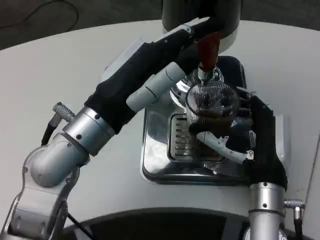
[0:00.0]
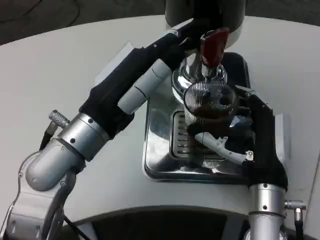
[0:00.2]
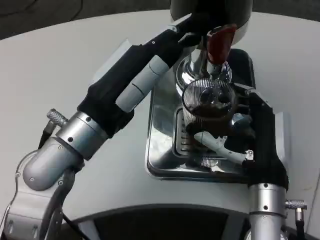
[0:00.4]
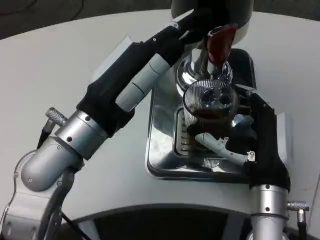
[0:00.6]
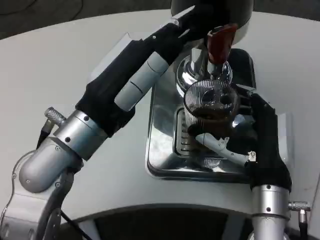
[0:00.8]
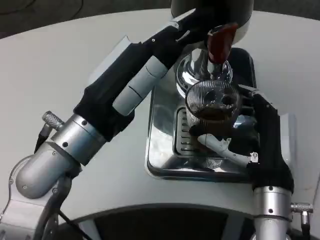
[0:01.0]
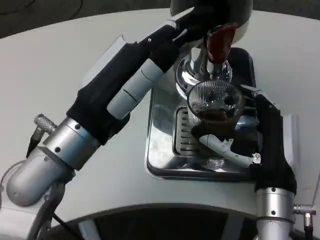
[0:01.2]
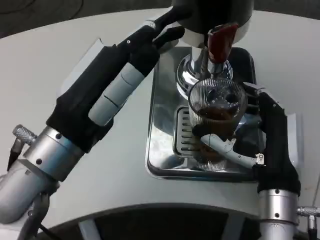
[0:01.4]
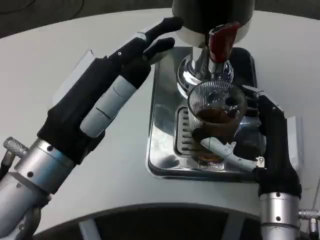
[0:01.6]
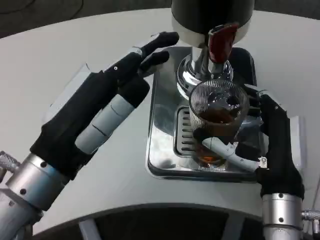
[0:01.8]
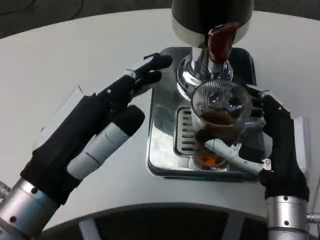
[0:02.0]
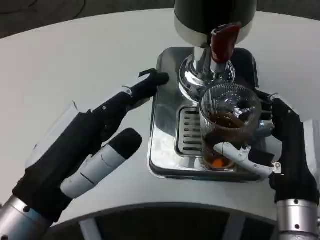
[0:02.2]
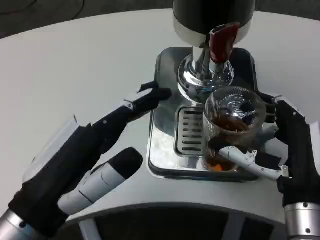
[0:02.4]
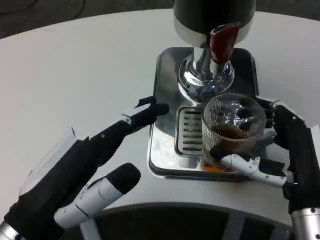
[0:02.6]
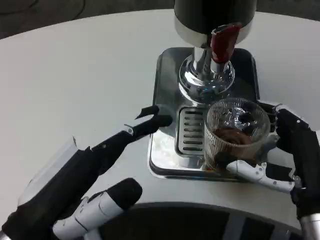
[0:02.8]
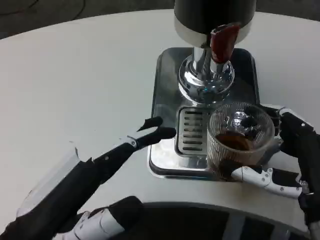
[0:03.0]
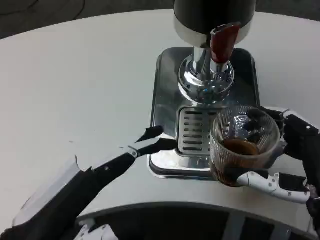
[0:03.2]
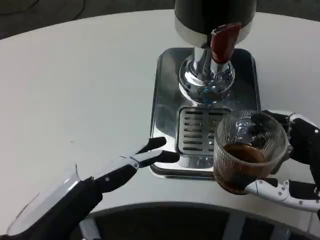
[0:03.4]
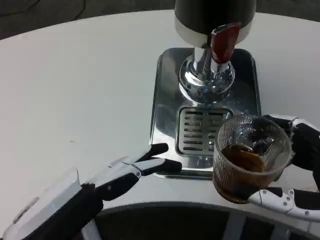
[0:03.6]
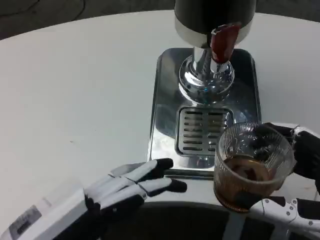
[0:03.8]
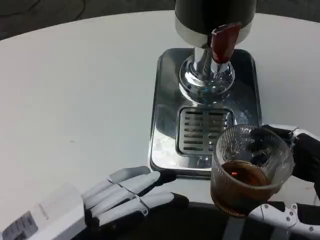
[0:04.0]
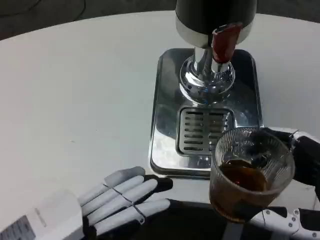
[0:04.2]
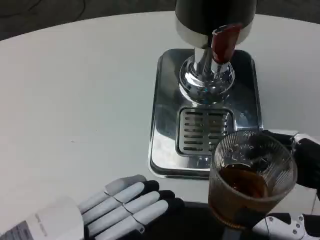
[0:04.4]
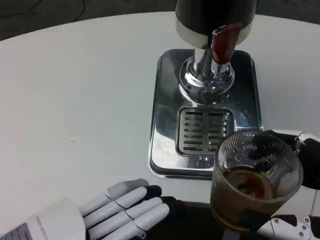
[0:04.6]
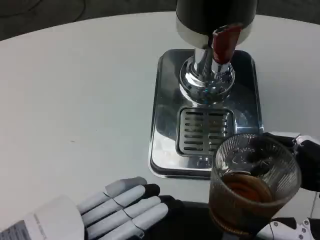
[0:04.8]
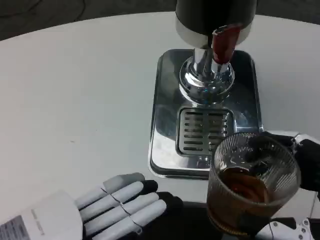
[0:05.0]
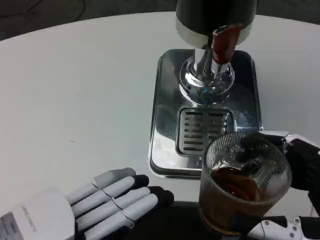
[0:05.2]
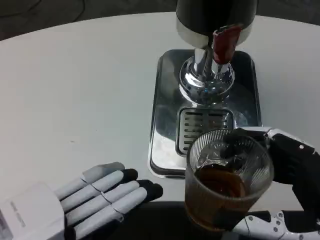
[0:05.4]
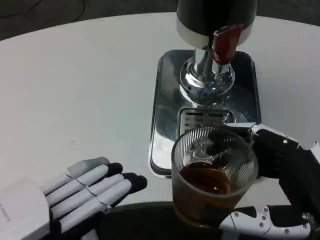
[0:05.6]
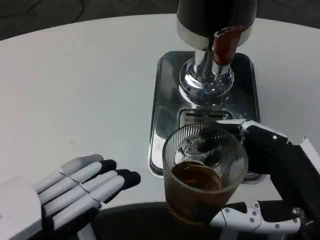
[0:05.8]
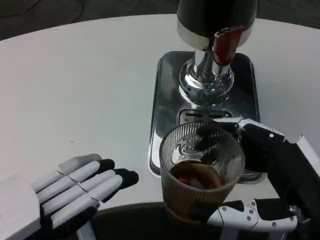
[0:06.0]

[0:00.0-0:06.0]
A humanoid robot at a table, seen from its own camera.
Task of the whole recording: Grasp the cup under the faucet to collect the drink, then remove the cup.
0:00.0 to 0:01.6: The left hand travels backward by approximately 5 cm.
0:01.6 to 0:03.0: The left hand shifts about 10 cm backward and downward, while the right hand goes approximately 5 cm to the right.
0:03.0 to 0:04.4: The right hand travels backward by roughly 10 cm. Meanwhile the left hand shifts by roughly 5 cm.

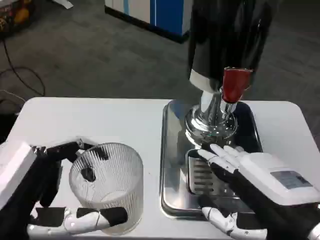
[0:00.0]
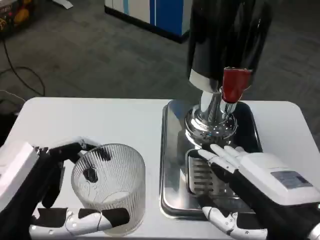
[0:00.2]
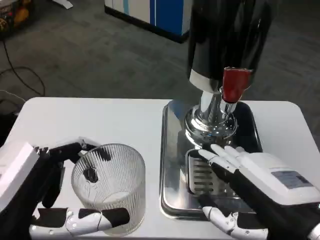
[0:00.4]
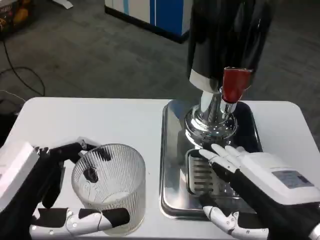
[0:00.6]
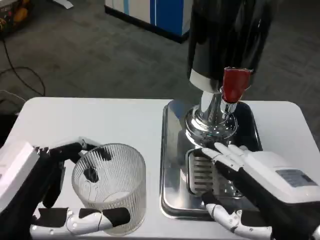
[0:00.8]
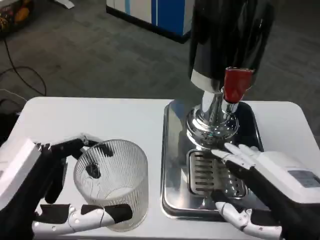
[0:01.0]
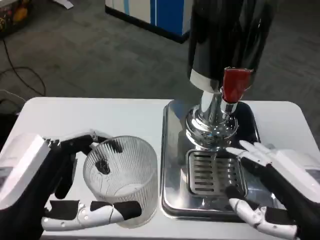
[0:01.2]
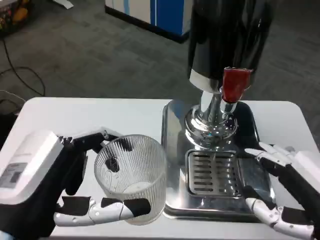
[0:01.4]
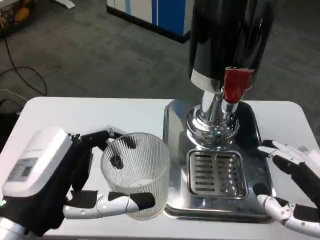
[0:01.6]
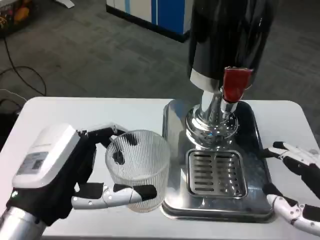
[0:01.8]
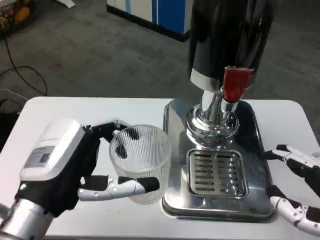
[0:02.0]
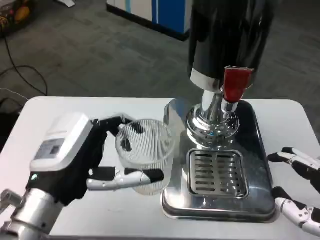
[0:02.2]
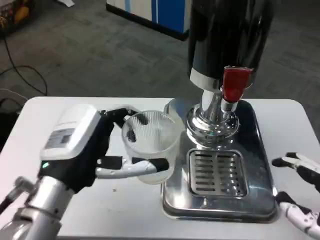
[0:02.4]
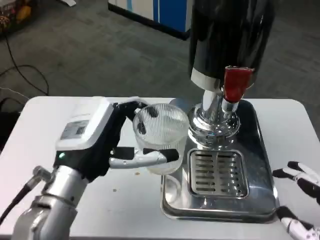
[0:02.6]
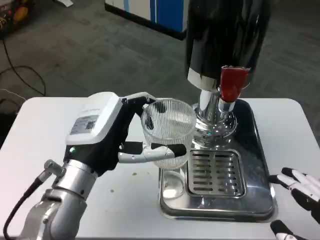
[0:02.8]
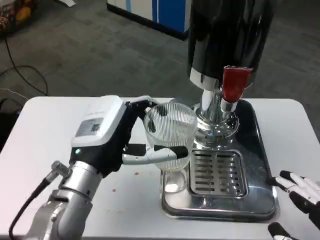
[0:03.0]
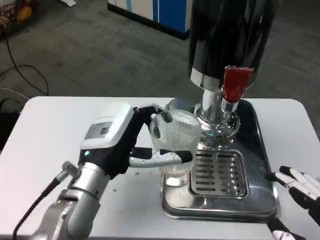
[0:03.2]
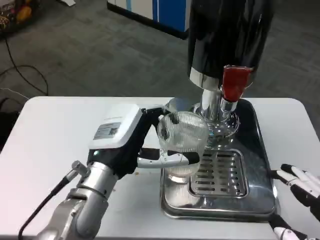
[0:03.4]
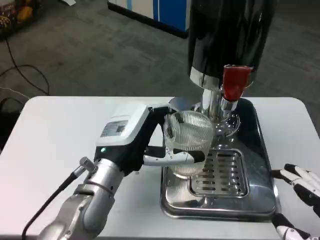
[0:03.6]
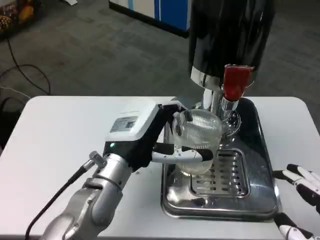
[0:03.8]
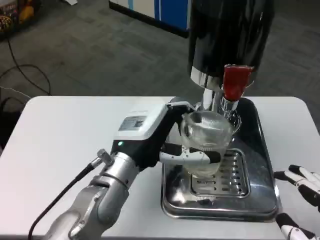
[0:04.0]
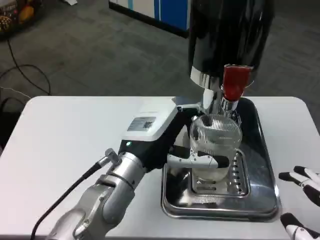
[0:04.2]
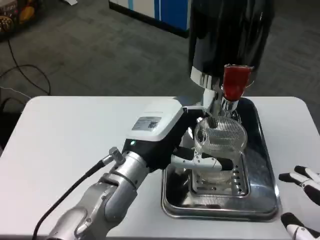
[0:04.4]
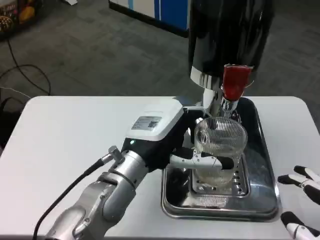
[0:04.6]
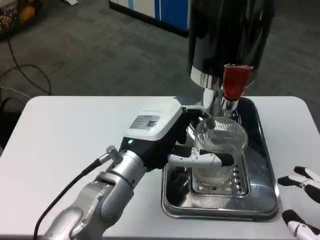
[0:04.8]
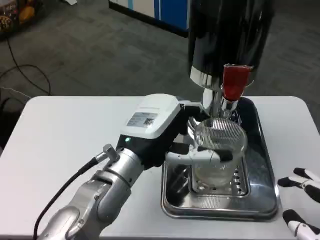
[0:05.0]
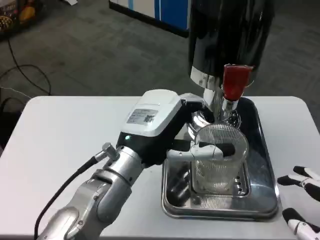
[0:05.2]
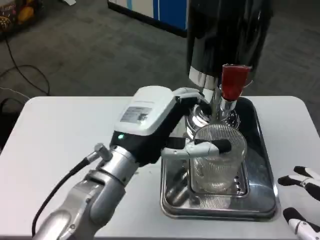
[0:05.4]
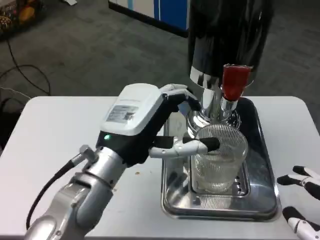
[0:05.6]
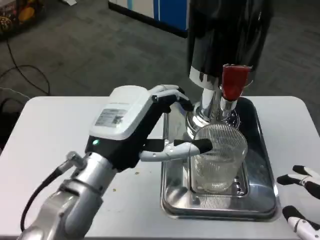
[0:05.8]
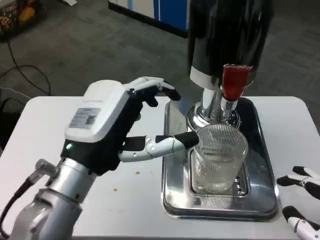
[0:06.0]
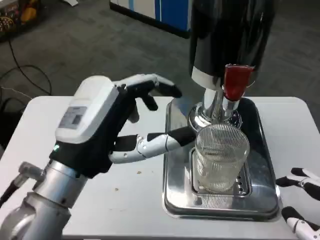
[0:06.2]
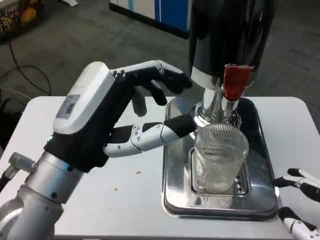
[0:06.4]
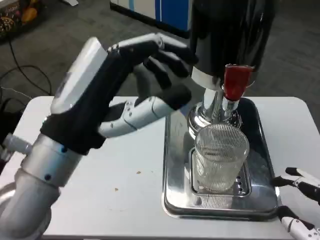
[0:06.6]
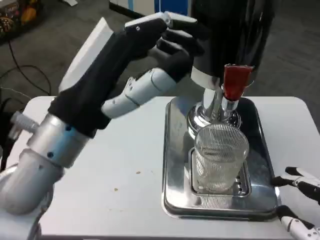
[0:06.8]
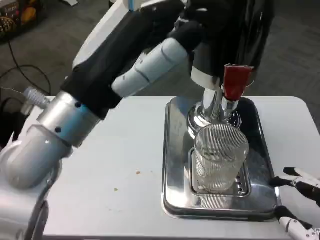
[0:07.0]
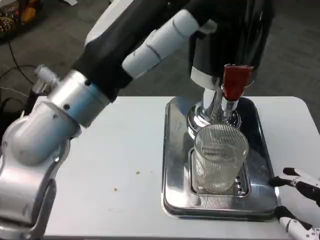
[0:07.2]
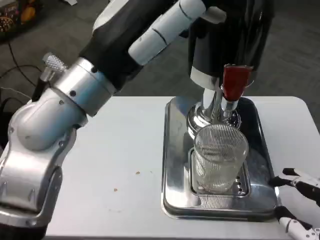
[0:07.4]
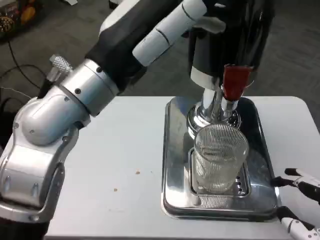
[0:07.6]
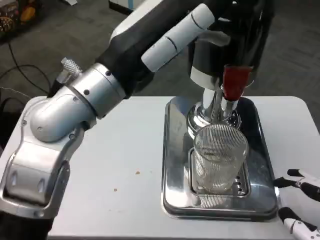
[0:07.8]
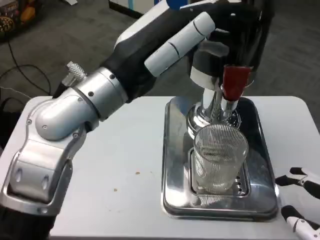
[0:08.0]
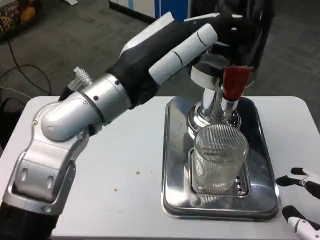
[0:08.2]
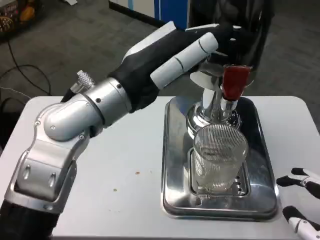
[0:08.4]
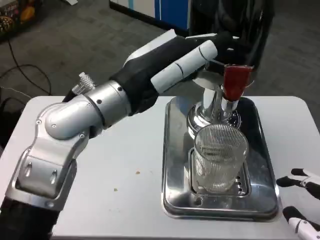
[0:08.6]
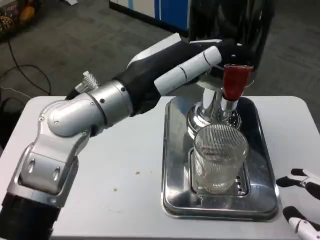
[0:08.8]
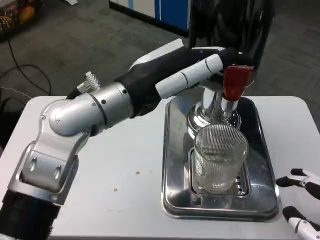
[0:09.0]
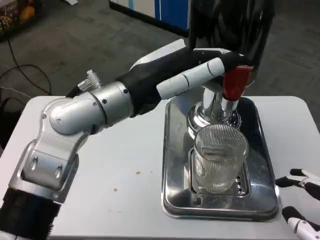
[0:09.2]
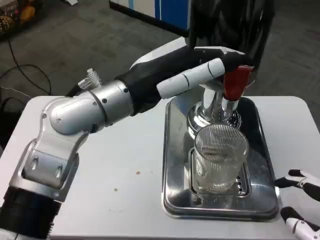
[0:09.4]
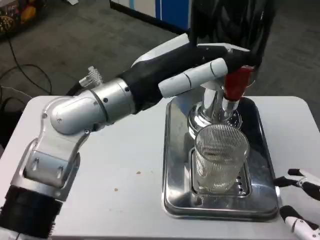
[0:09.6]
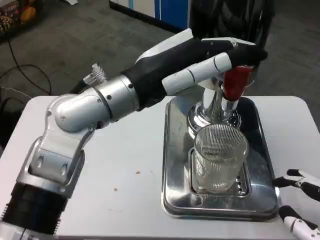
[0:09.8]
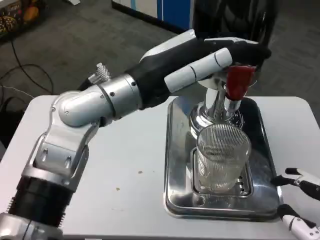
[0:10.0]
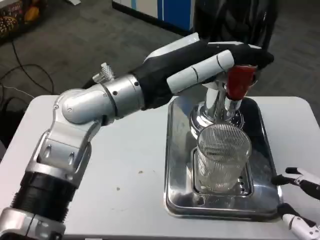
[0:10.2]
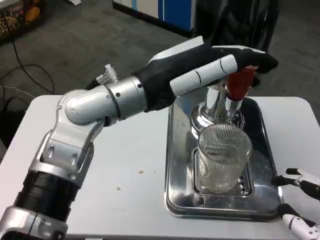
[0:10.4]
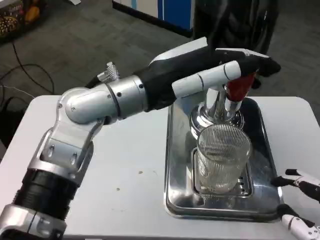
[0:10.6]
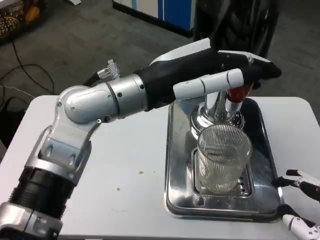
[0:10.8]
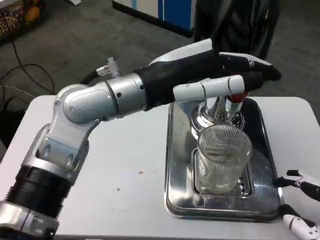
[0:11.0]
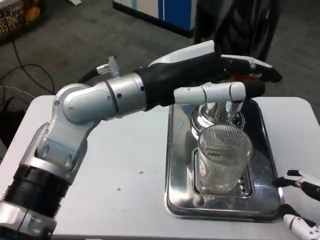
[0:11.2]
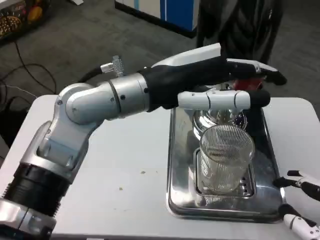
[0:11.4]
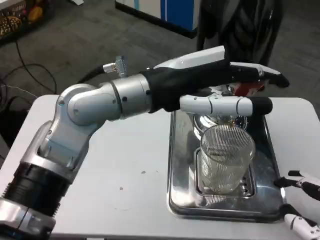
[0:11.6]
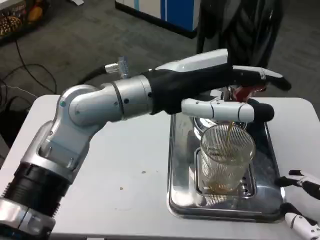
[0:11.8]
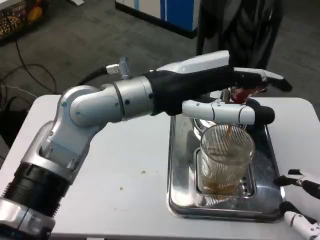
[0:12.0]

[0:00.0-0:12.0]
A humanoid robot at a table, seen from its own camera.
Task of the whole recording: Grasp the cup under the faucet to collect the drink, then remove the cup.
0:01.6 to 0:03.0: The left hand travels forward and to the right by about 10 cm.
0:03.0 to 0:04.4: The left hand travels to the right by about 5 cm.
0:04.4 to 0:06.0: The left hand goes approximately 10 cm backward and to the left.
0:06.0 to 0:07.6: The left hand travels upward by some 10 cm.

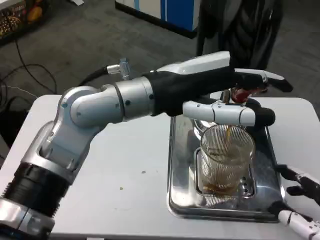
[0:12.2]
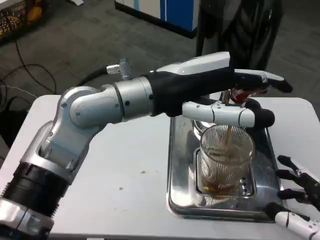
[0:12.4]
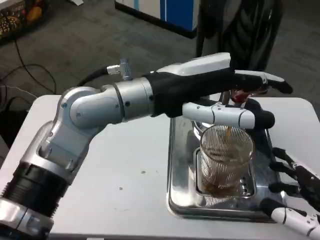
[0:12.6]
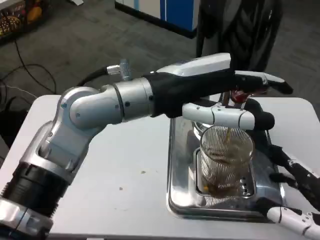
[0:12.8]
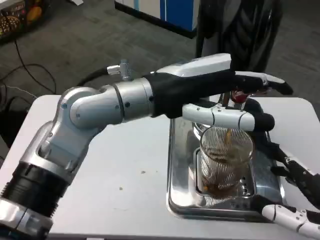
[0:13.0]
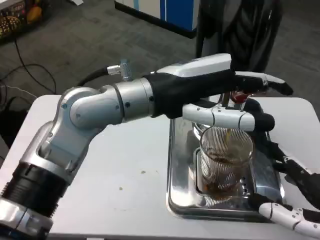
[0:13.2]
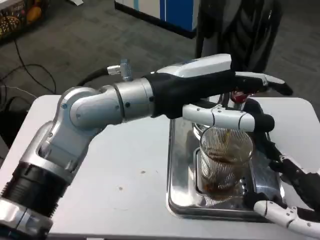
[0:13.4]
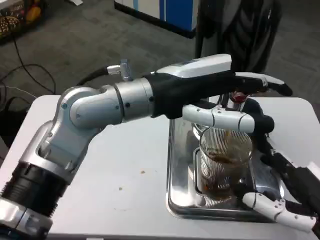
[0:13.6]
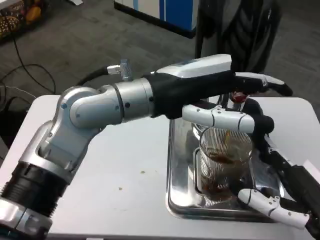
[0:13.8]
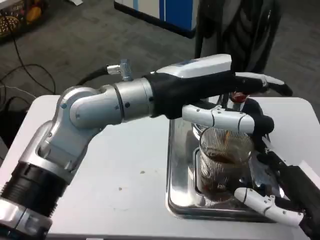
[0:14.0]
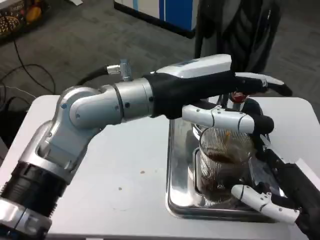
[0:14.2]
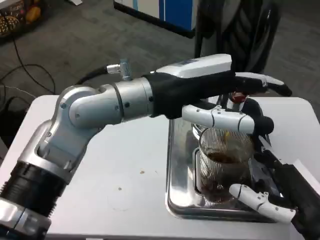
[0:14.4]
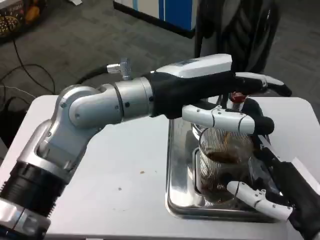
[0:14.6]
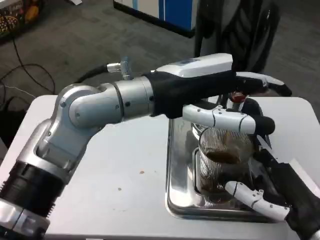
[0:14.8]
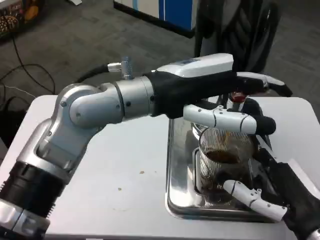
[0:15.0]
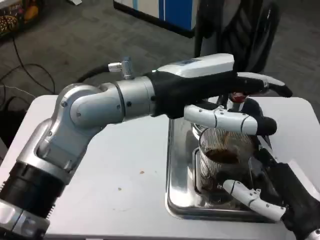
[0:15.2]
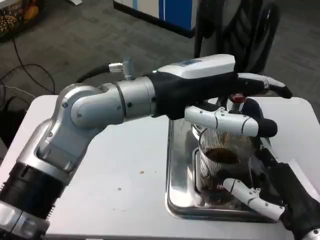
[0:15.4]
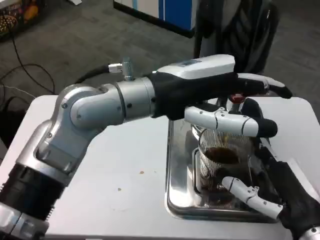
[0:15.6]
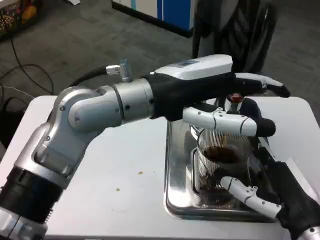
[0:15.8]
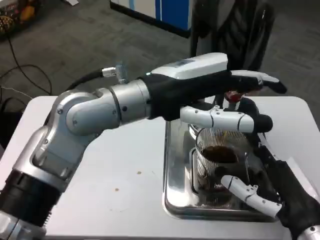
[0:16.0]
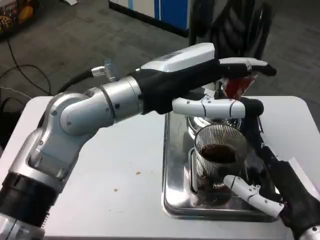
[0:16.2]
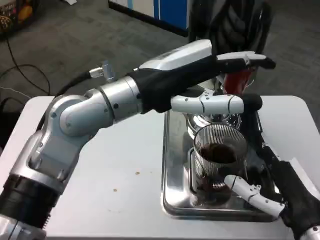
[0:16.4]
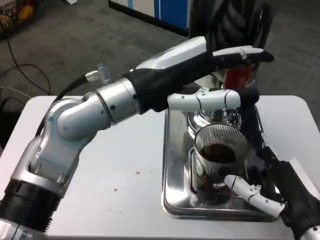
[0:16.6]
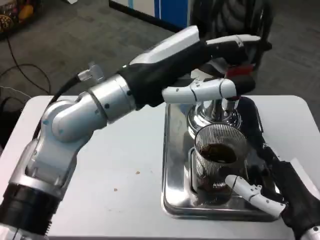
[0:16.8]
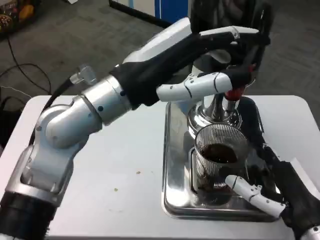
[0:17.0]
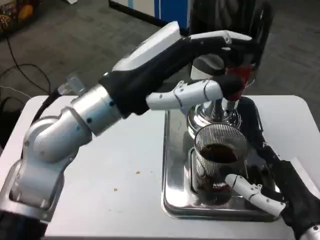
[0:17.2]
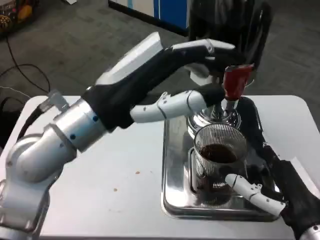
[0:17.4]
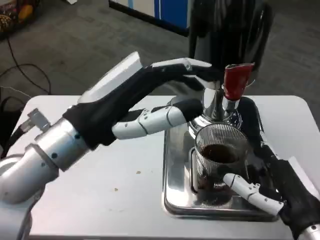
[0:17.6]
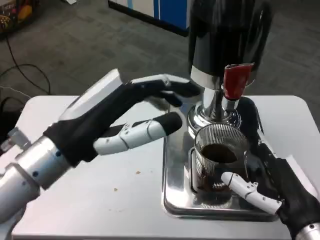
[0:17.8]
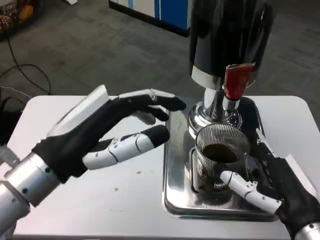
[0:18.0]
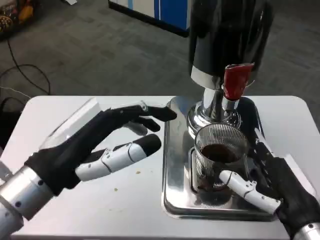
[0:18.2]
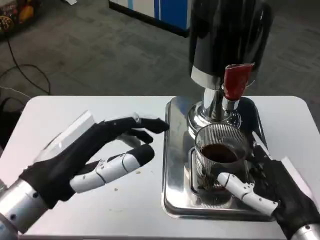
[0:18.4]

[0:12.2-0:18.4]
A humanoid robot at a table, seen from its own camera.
Task of the whole recording: Grasp the cup under the faucet to collect the drink, then remove the cup.
0:12.2 to 0:13.8: The right hand ends up approximately 5 cm from where it was.
0:13.8 to 0:15.4: The hands make only small movements.
0:16.8 to 0:18.4: The left hand shifts about 15 cm backward, downward and to the left.
